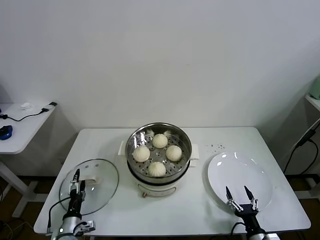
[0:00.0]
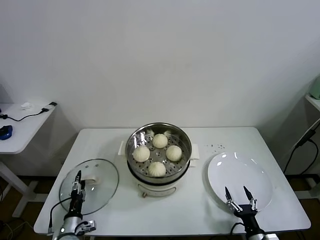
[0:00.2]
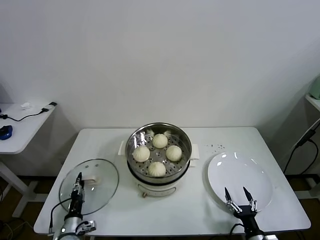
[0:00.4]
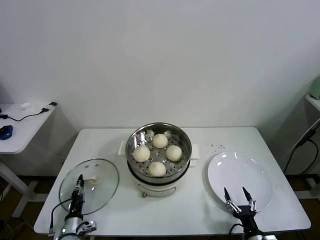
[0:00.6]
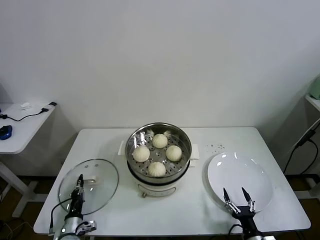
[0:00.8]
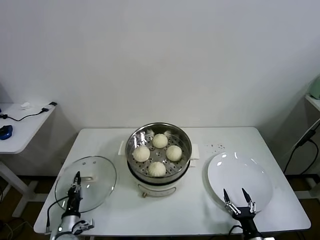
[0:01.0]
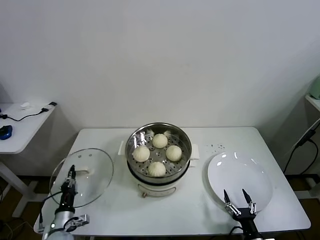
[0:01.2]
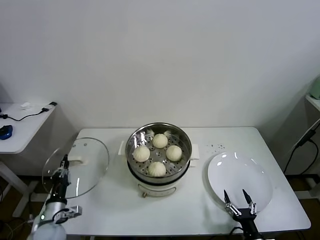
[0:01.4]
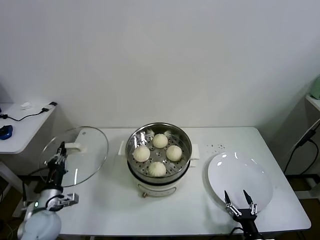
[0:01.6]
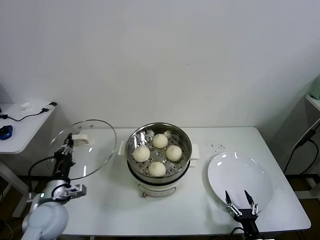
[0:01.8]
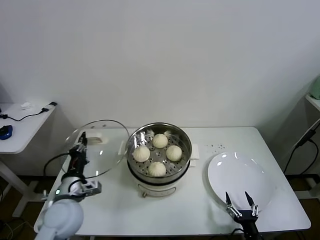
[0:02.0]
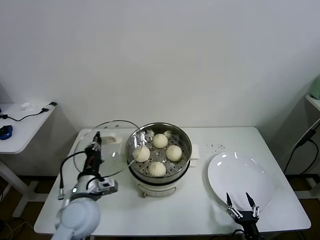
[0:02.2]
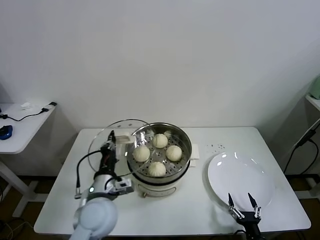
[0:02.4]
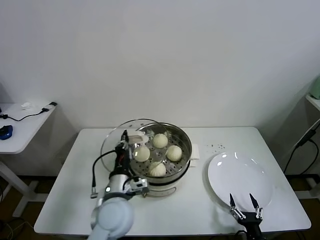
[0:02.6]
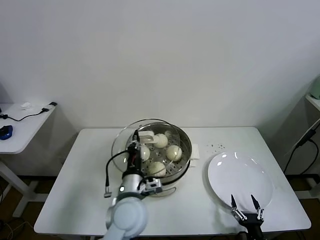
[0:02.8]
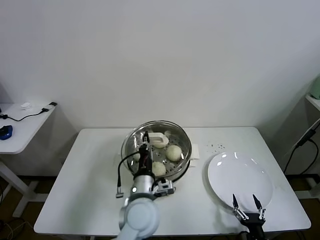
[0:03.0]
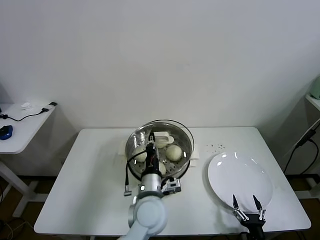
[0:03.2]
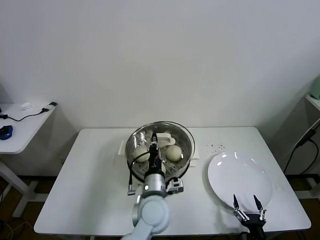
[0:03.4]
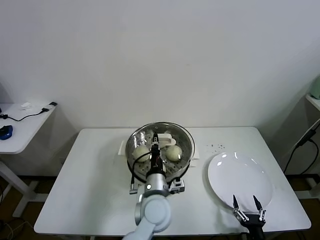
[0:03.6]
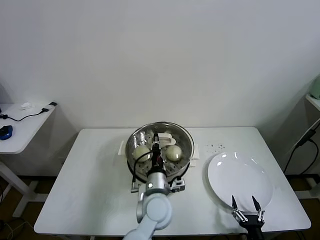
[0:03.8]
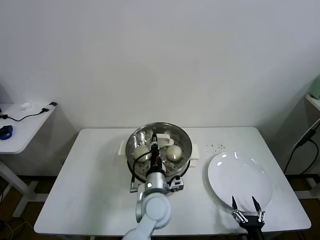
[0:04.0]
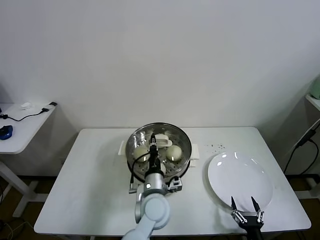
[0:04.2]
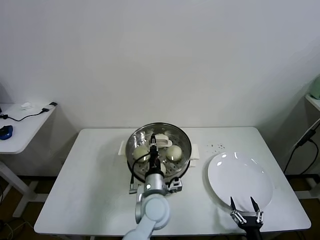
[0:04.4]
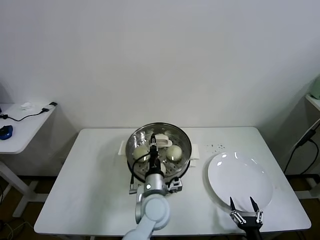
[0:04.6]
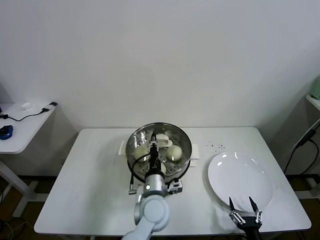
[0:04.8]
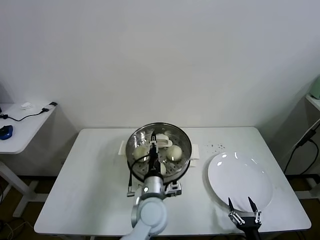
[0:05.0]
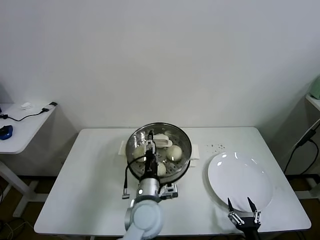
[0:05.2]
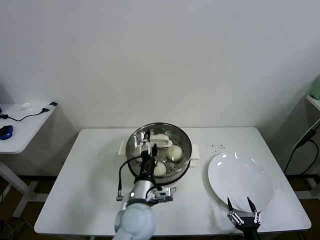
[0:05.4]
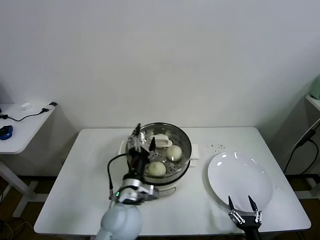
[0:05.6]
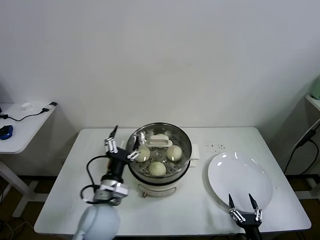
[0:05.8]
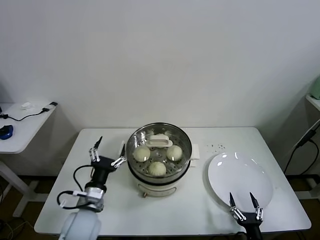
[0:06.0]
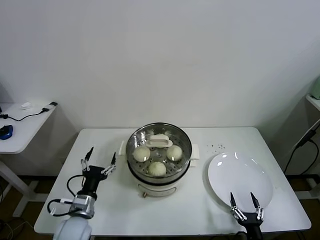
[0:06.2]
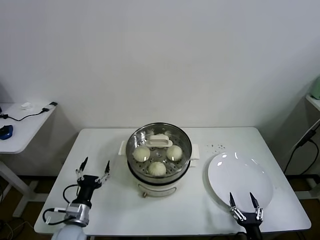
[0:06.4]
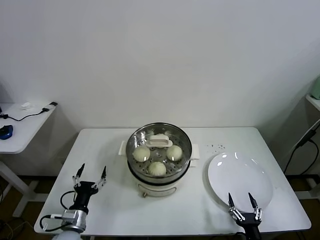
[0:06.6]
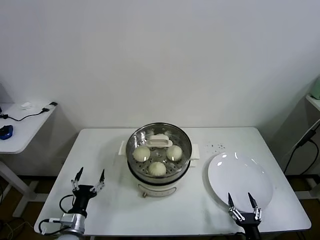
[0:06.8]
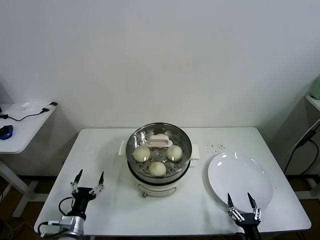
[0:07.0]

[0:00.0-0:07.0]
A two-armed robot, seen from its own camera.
Task of the whole recording: take steamed baozi put them in steamer.
Step, 0:00.8 to 0:05.2: Place the pot lid on the steamer with left gripper.
0:00.0 to 0:01.4: The left gripper heads upward, covering about 5 cm, and closes its fingers.
0:01.4 to 0:02.8: The left gripper heads to the right and upward, covering roughly 30 cm.
0:02.8 to 0:04.2: The left gripper shifts some 10 cm to the right.
0:04.2 to 0:05.6: The left gripper travels to the left by about 5 cm, and opens.
0:05.6 to 0:07.0: The left gripper moves to the left and downward, approximately 30 cm.
